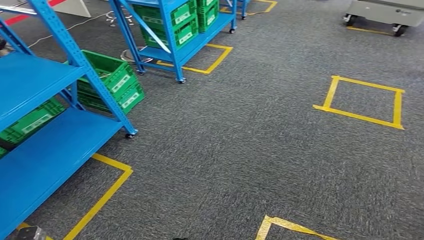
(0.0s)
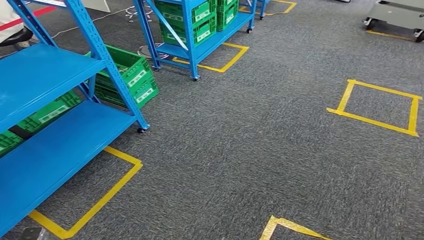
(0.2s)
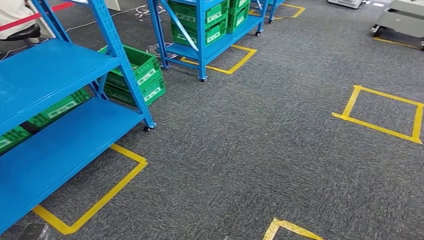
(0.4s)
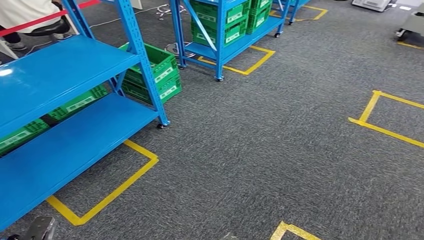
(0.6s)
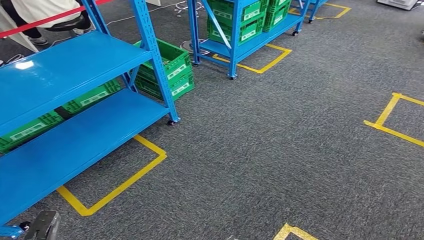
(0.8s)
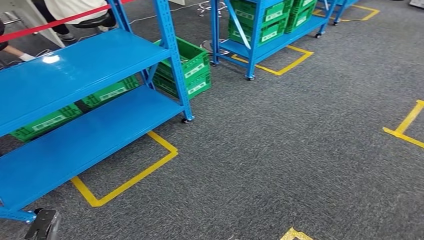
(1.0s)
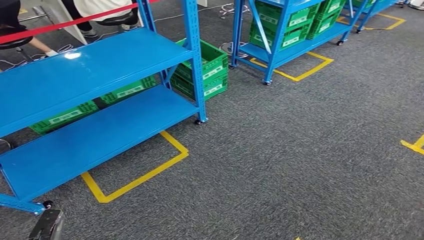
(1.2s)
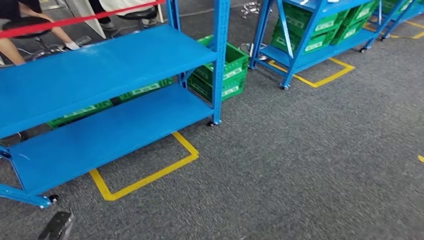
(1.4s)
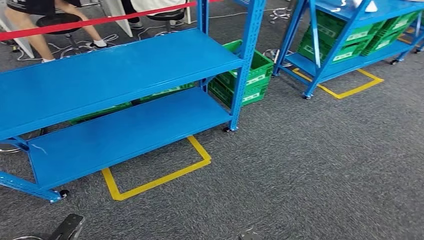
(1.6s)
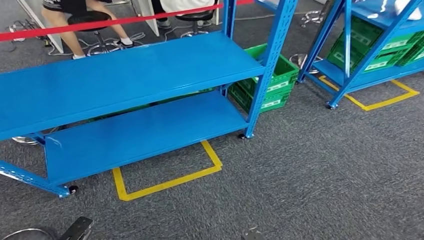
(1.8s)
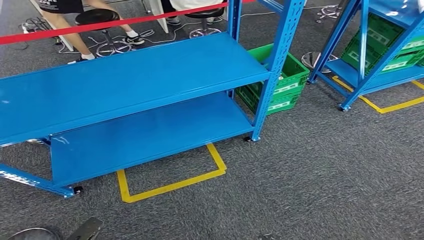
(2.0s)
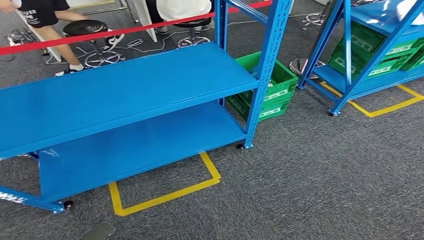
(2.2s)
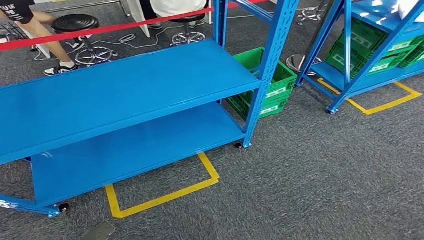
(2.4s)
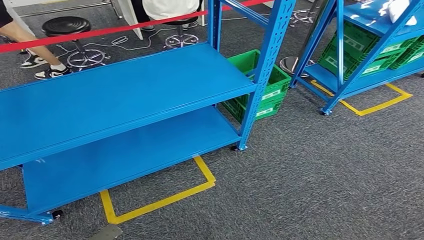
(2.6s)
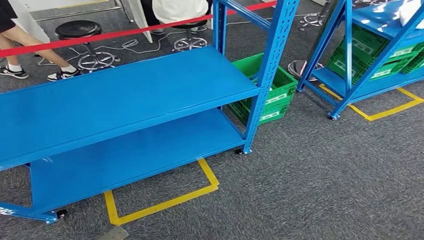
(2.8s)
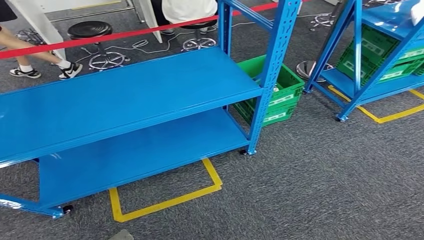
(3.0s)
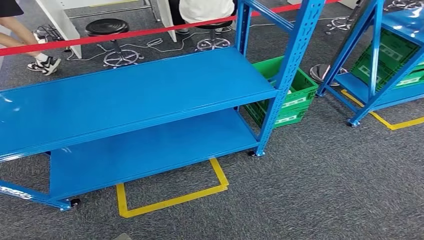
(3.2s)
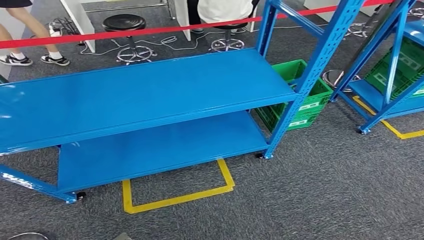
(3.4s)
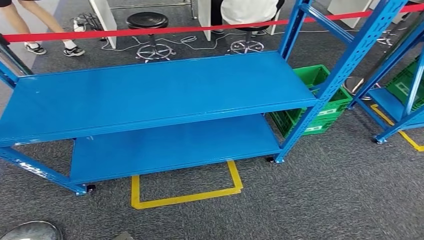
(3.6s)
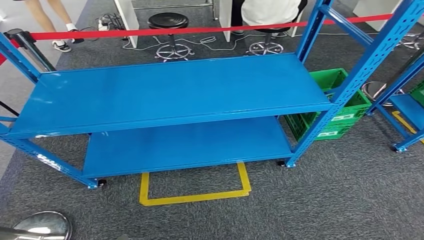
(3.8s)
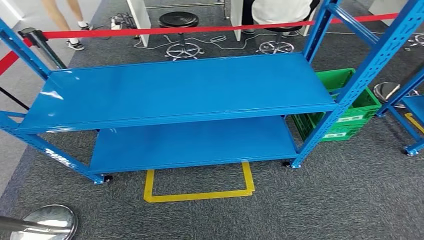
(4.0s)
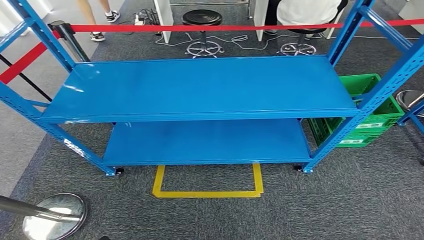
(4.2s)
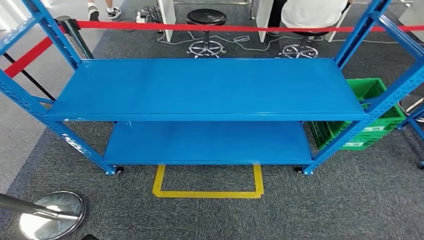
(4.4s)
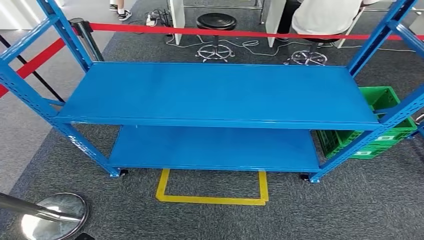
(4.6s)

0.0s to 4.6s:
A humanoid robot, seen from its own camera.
Step, 0.0s to 4.4s: Return to the initial position at the workbench.

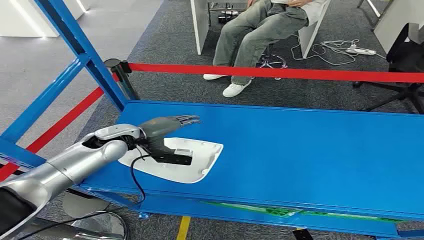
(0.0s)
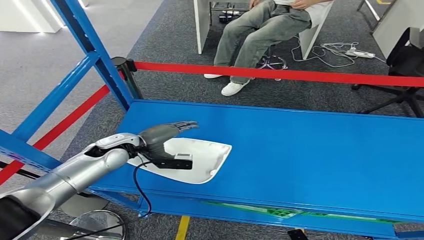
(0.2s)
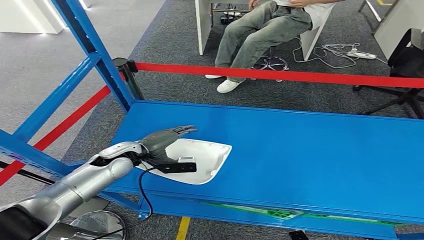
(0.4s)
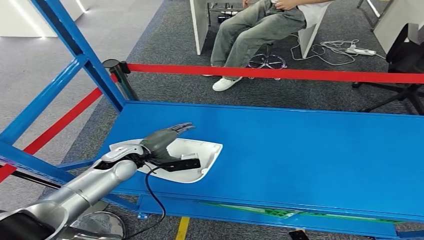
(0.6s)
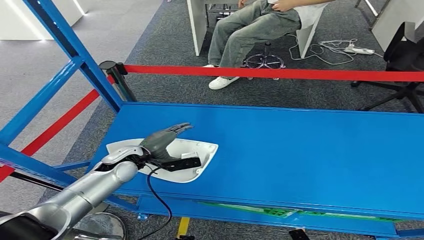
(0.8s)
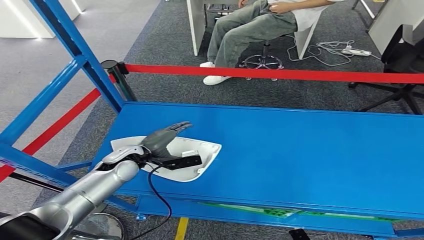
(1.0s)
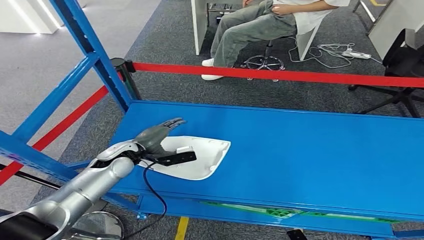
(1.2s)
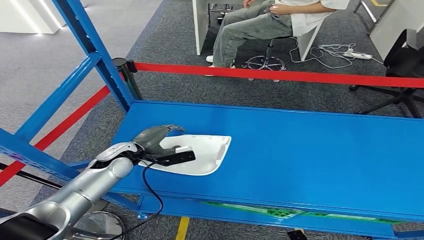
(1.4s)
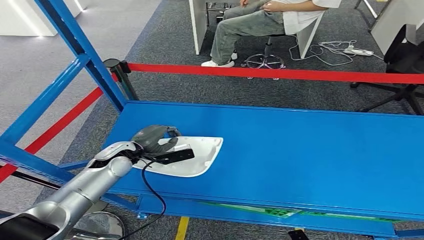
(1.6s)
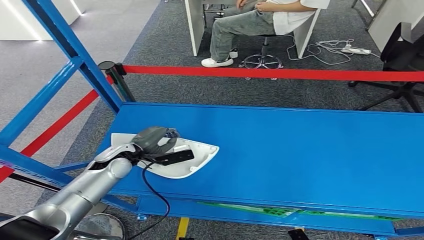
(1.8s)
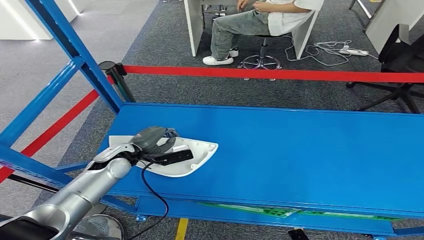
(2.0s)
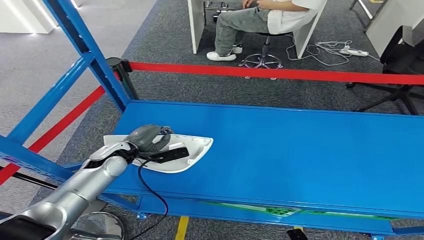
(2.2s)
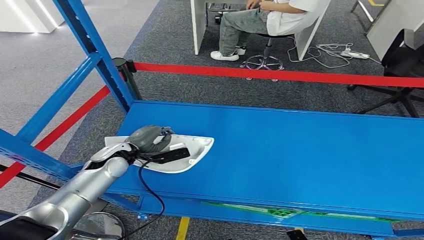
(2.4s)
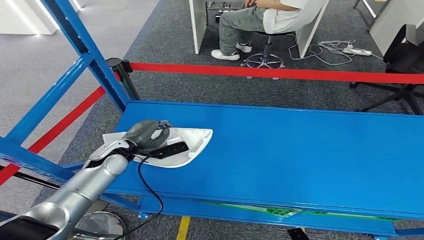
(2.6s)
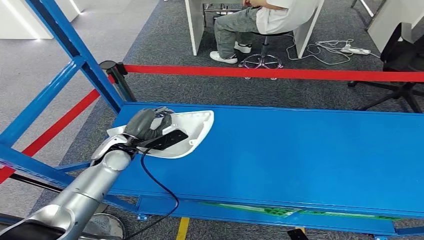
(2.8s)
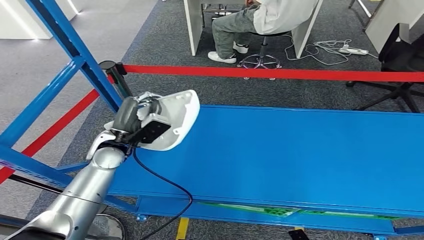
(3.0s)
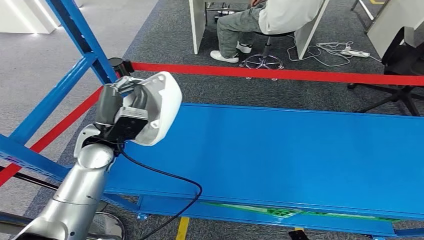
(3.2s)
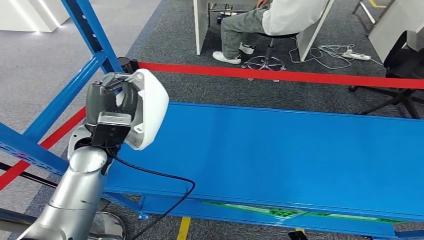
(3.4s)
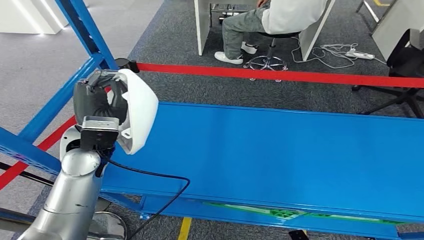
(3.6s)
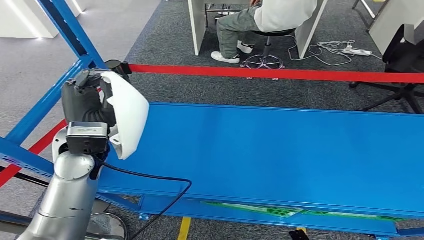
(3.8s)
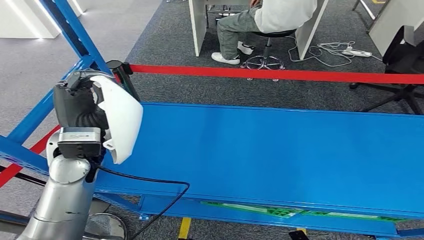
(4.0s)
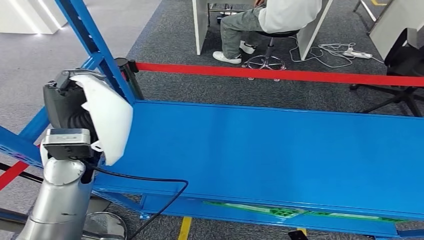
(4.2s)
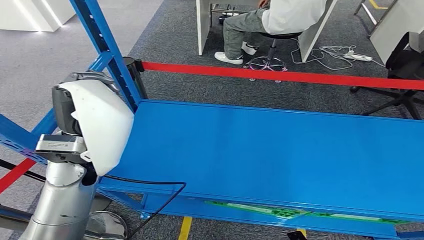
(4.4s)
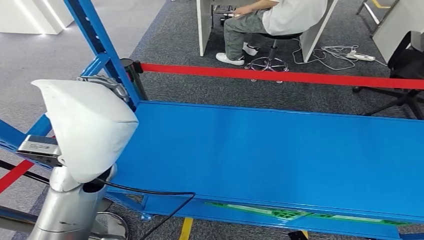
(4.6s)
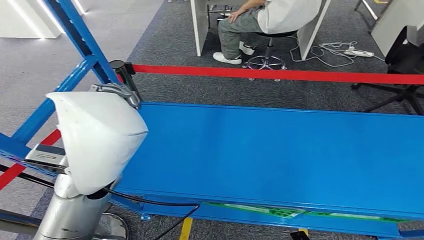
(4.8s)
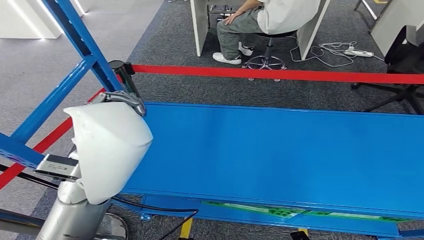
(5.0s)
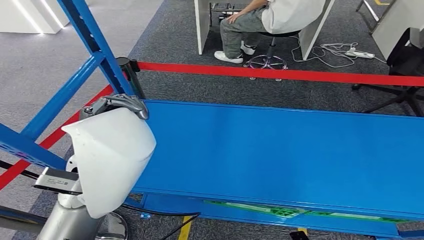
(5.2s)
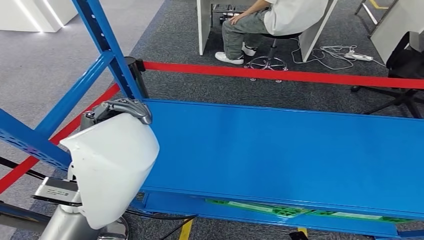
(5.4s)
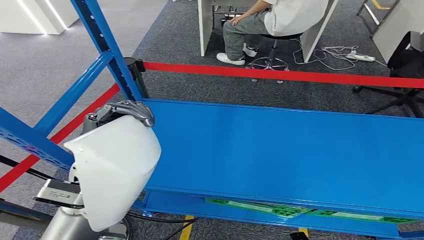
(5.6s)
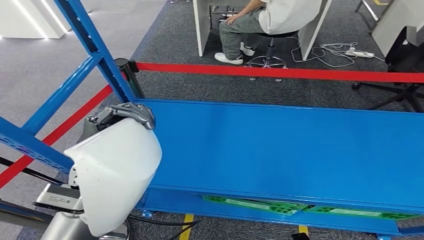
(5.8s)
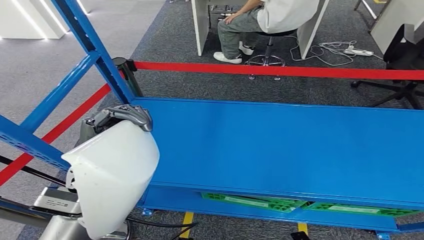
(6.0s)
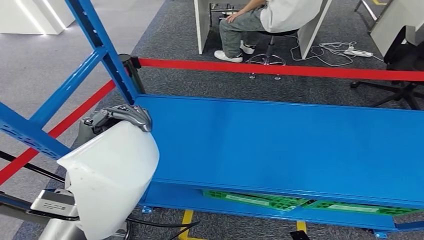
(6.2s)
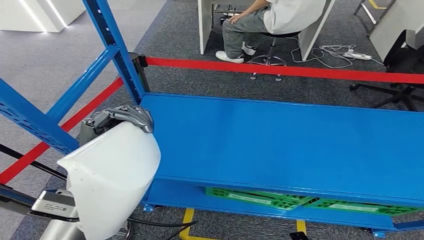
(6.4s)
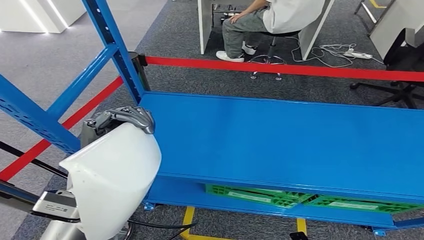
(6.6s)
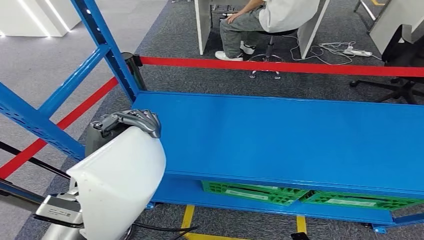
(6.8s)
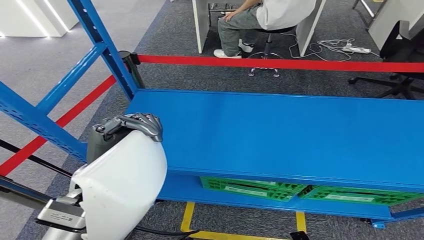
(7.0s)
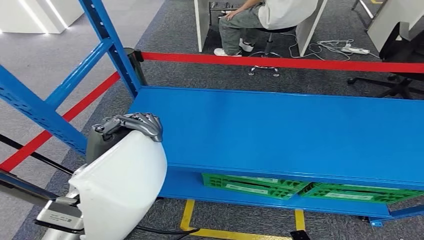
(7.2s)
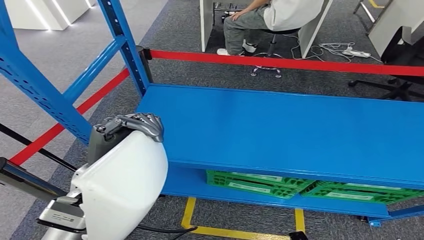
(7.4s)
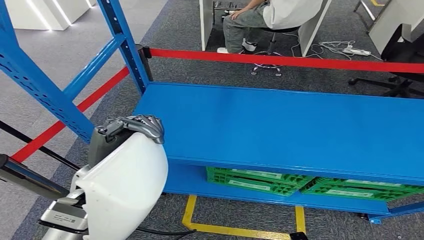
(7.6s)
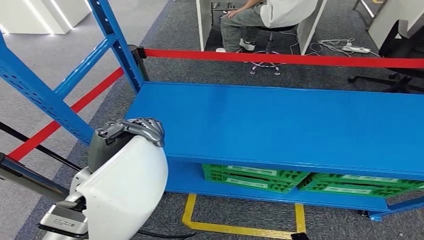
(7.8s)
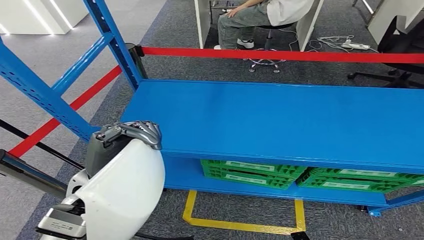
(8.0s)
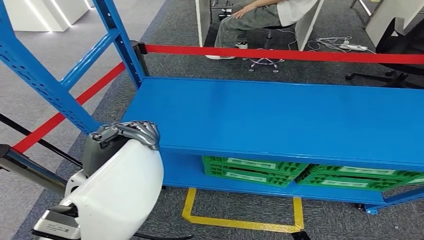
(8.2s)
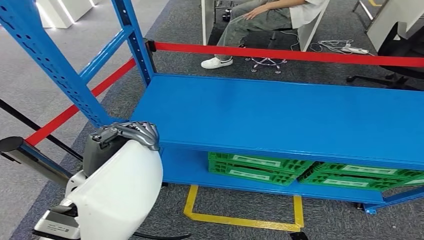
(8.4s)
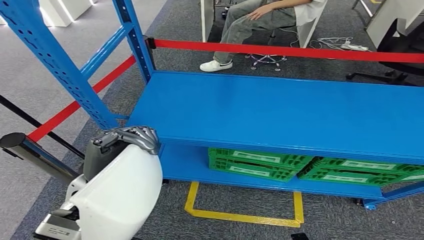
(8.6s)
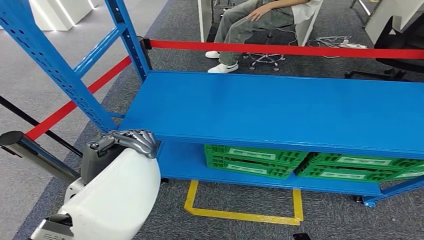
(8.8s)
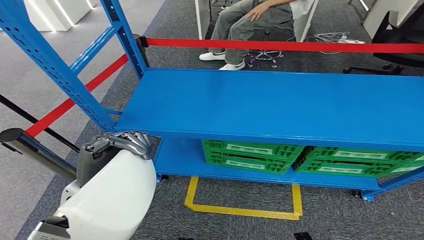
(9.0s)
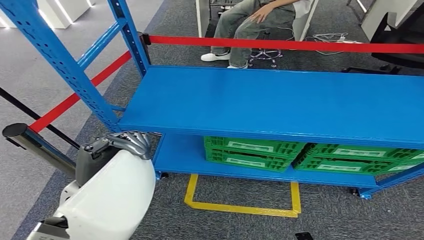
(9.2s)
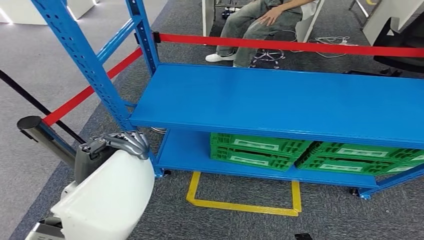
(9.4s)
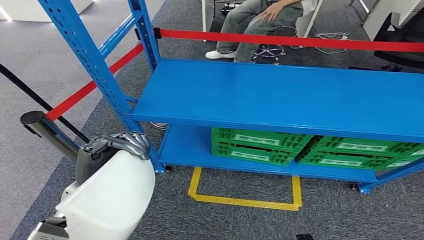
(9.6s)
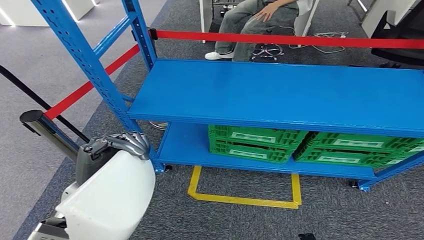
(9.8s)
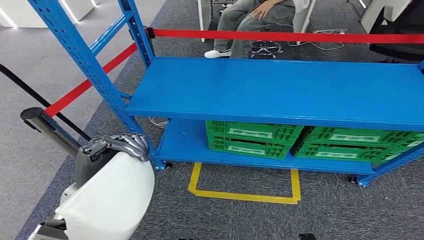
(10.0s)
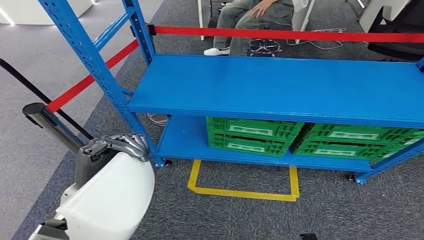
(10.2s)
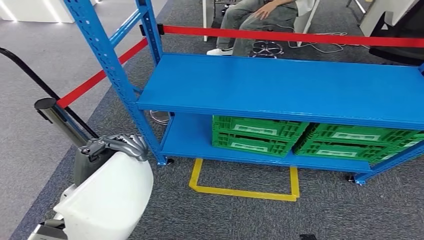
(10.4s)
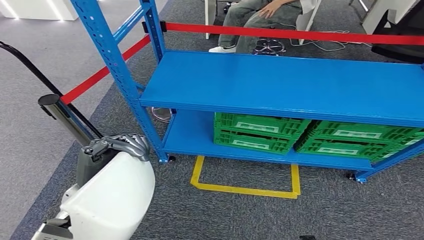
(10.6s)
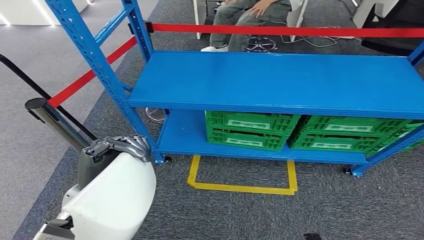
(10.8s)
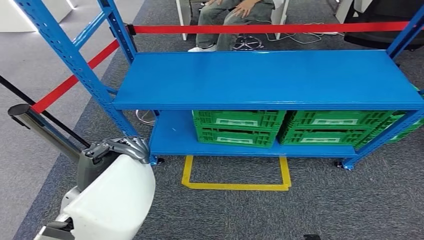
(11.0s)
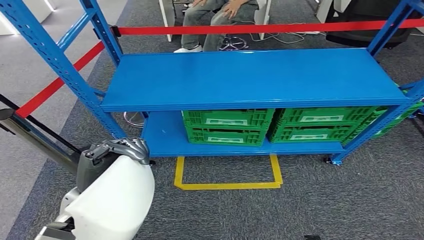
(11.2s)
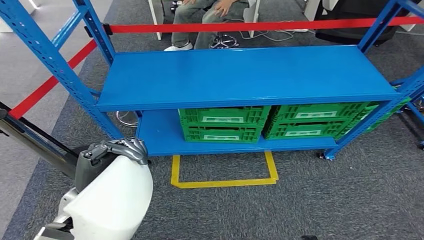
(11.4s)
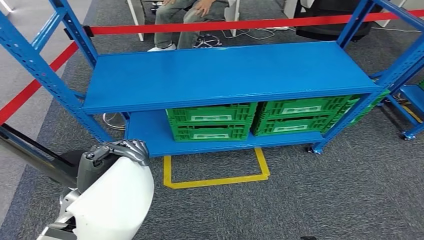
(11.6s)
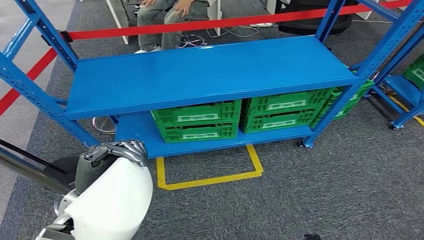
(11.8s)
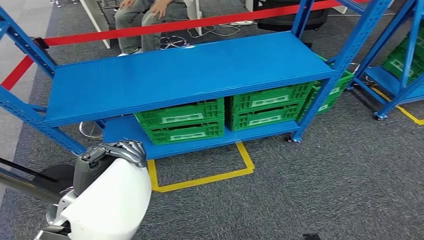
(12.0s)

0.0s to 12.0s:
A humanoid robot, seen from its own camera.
Step, 0.0s to 6.0s: Pick up the small component from the shelf.
